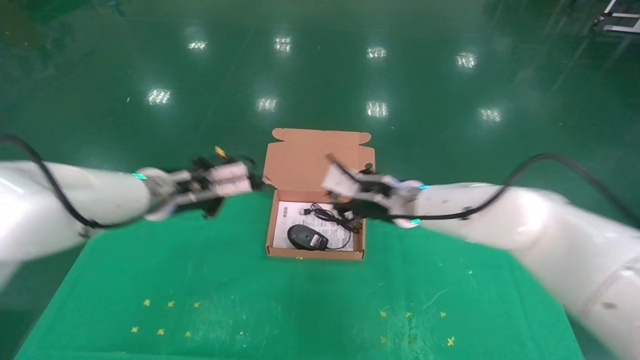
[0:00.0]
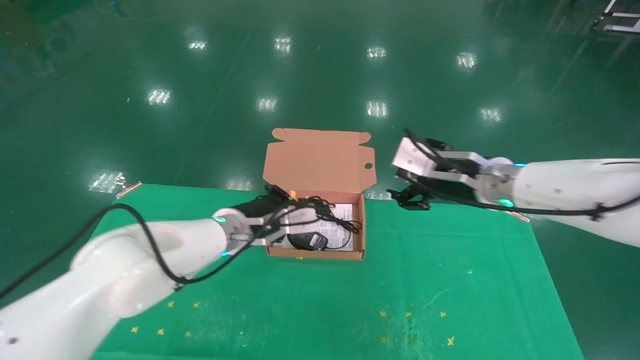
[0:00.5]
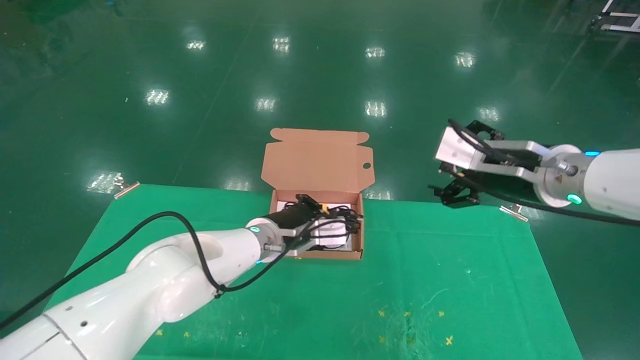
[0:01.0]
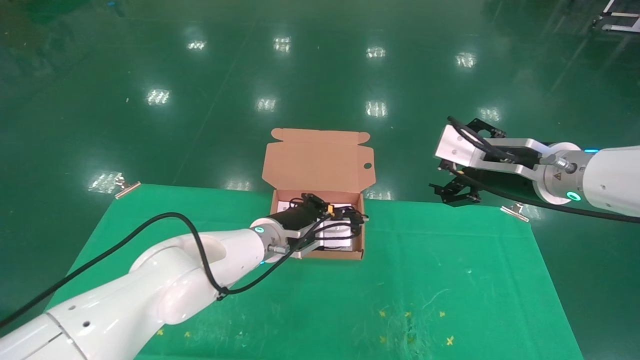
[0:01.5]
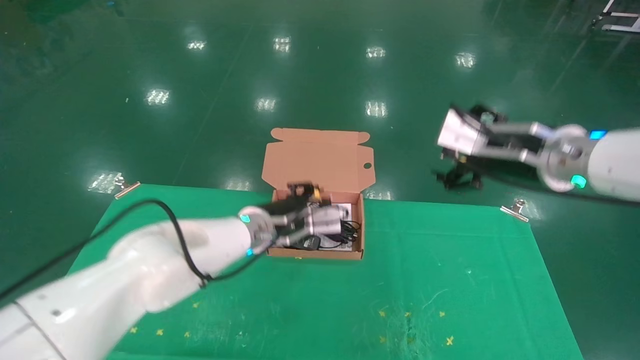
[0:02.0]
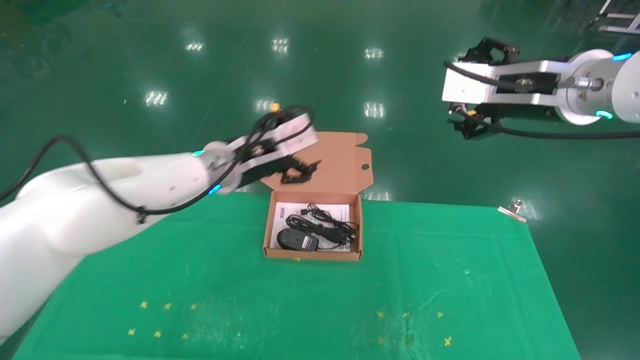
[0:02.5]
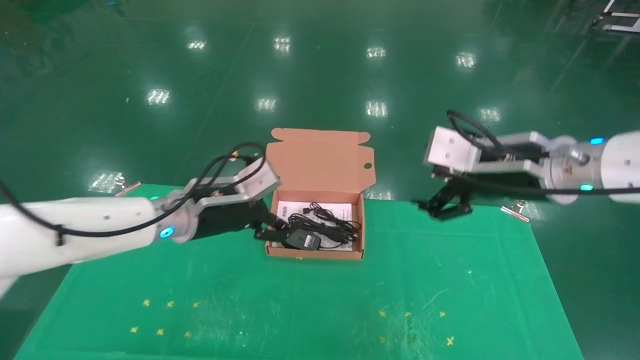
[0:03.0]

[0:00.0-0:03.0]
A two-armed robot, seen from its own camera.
Task of the whole recording: grasp data cable left put into box grasp mouse right put into box.
0:00.0 to 0:01.5: The right gripper travels to the right, backward and upward by some 20 cm, and opens up. The left gripper moves to the right and downward, about 15 cm.
0:01.5 to 0:03.0: The left gripper moves to the left, upward and backward, about 15 cm, and opens.
